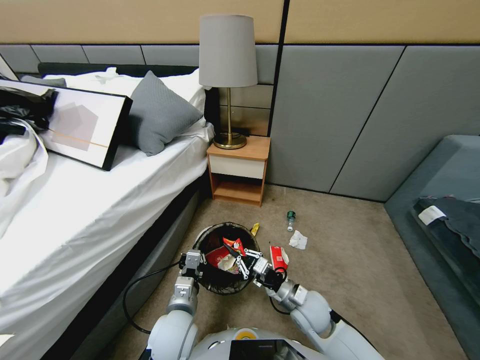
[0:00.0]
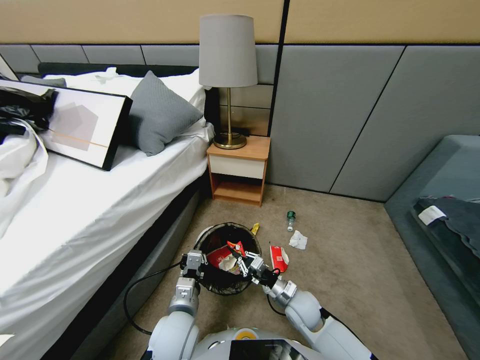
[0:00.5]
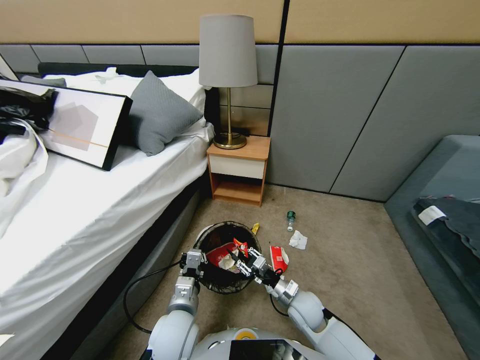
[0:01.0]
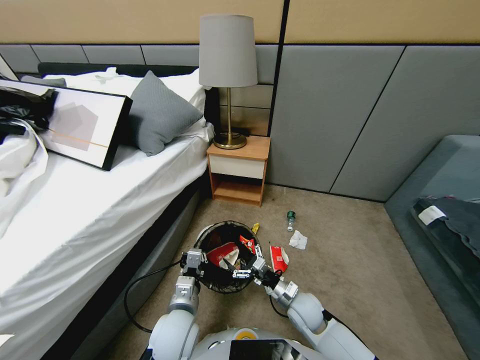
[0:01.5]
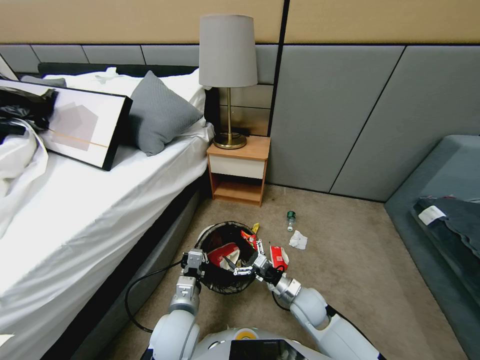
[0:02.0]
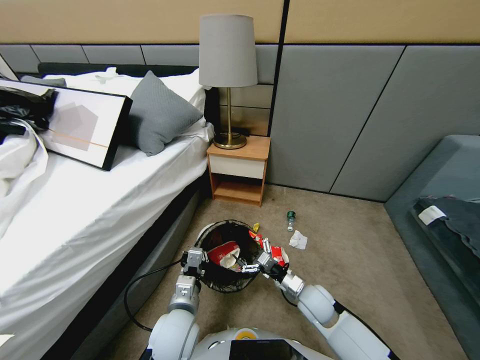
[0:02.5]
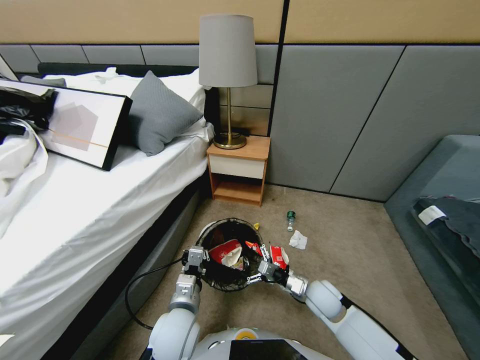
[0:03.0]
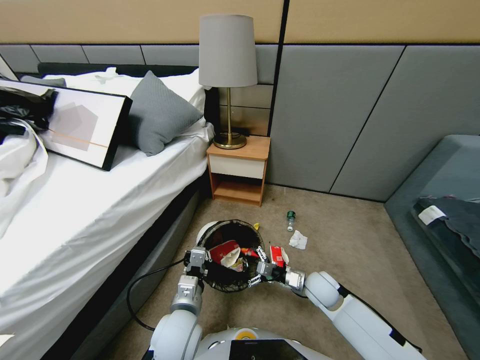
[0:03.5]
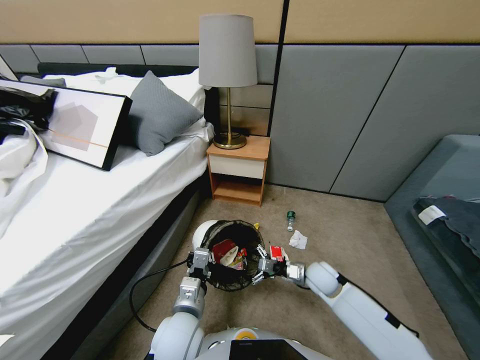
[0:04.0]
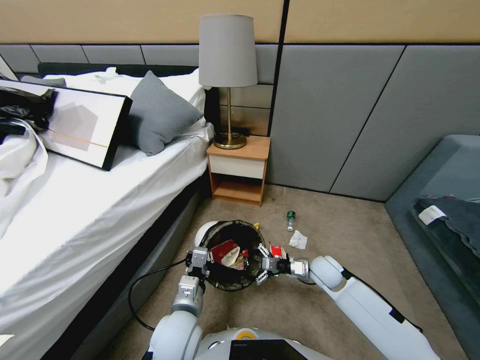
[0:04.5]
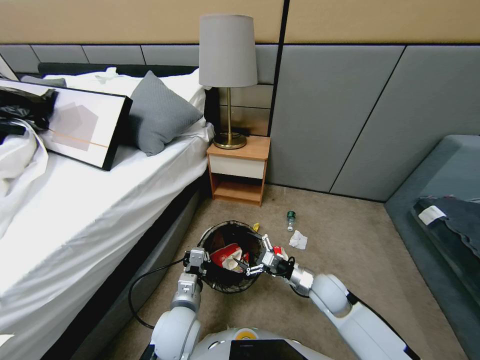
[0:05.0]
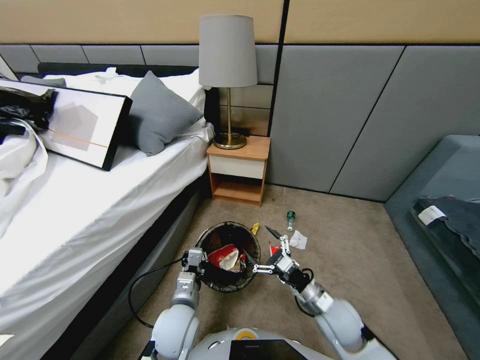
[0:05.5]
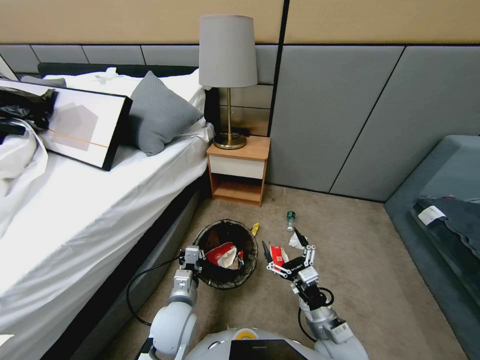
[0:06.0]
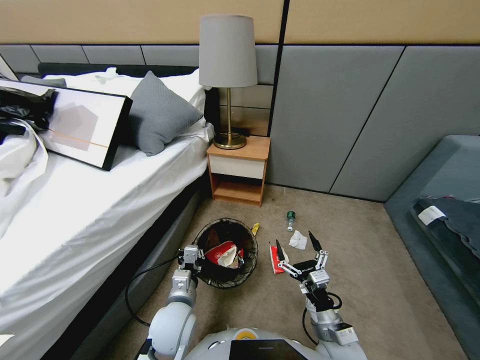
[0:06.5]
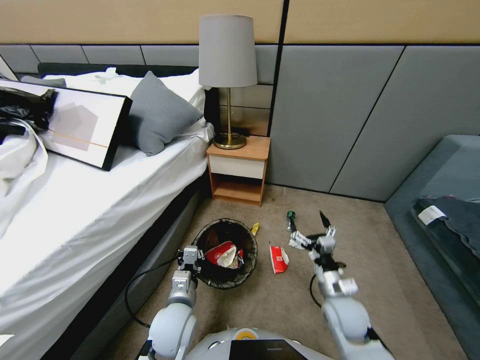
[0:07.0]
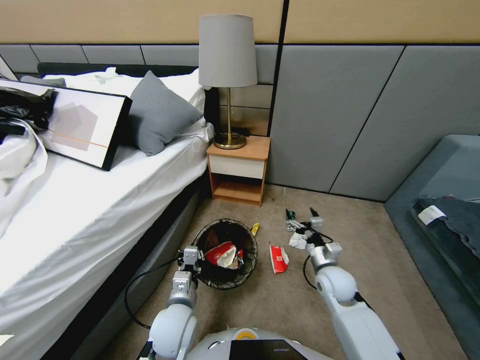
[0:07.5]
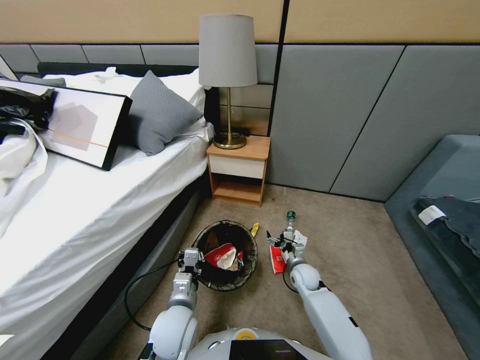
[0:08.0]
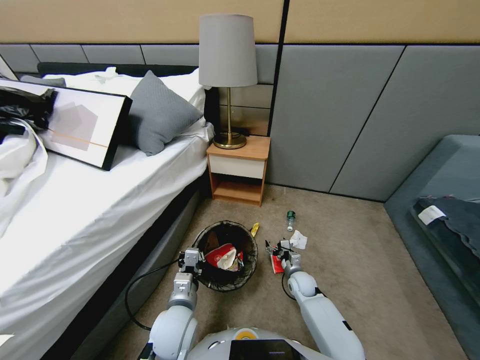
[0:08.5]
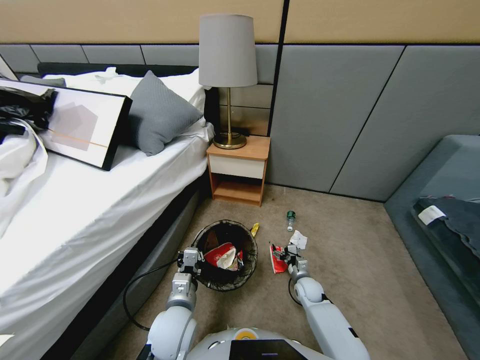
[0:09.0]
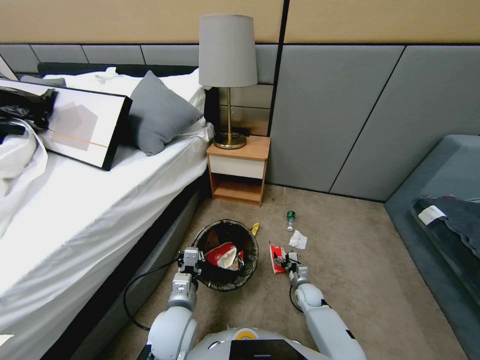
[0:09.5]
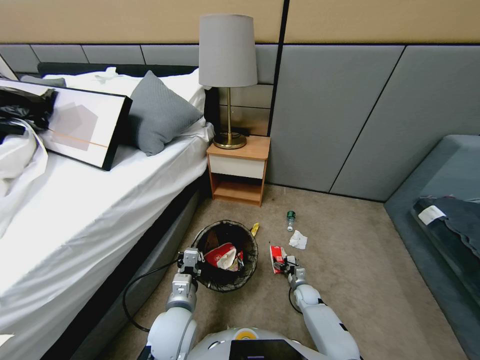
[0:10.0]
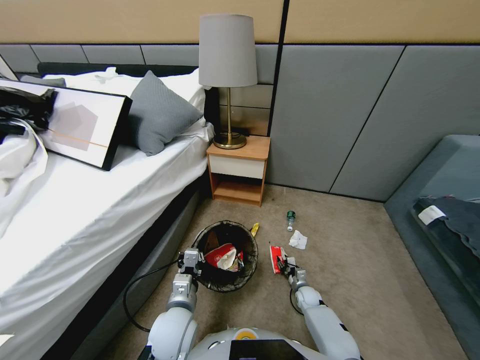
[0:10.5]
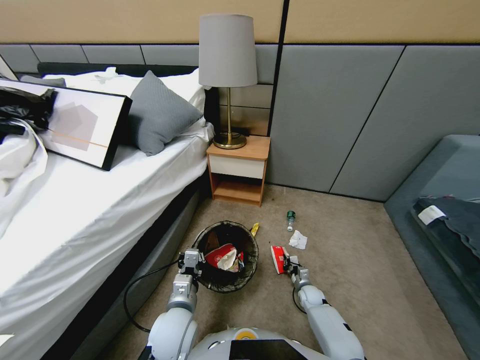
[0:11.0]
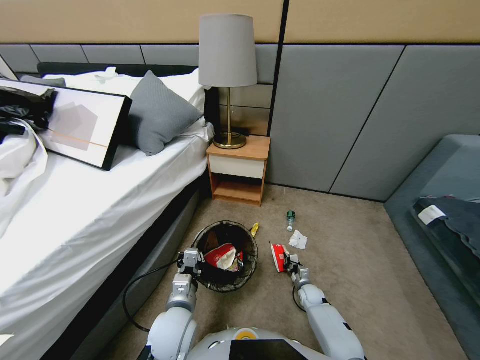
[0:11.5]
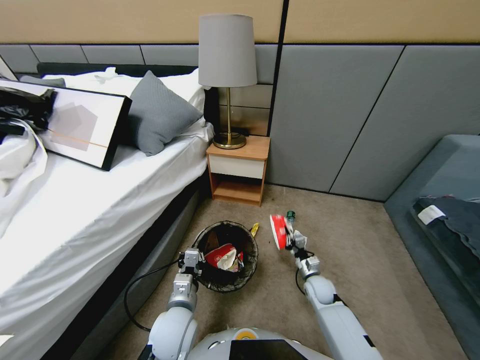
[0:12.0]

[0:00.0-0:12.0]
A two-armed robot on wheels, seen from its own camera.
Task of the whole recording: Pick up the trash bin, then pick up the garbage from the floor and place it into the trash bin.
0:00.0 to 0:02.0: The right gripper opens up.
0:02.0 to 0:04.0: The right gripper heads forward and to the right, covering roughly 10 cm.
0:04.0 to 0:06.0: The right gripper is displaced backward by approximately 20 cm.
0:06.0 to 0:08.0: The right gripper goes roughly 25 cm forward and downward.
0:08.0 to 0:10.0: The right gripper shifts approximately 15 cm downward.
0:10.0 to 0:12.0: The right gripper shifts roughly 20 cm upward, and closes its fingers.

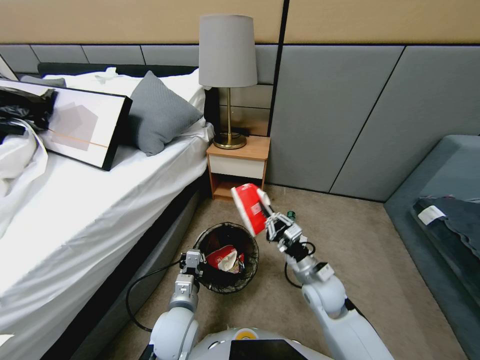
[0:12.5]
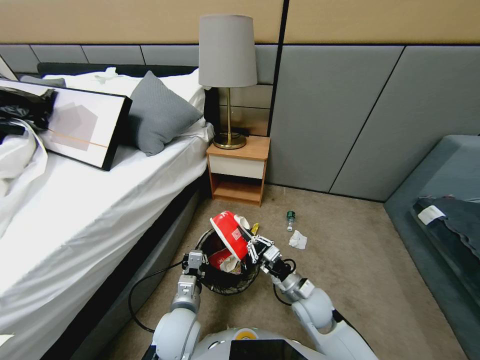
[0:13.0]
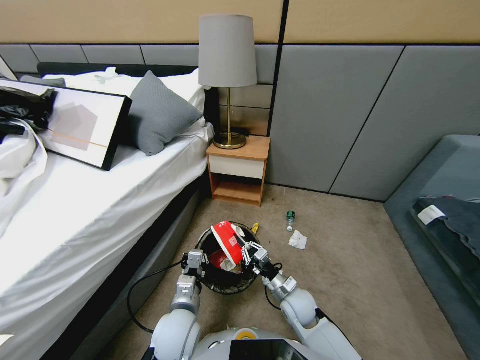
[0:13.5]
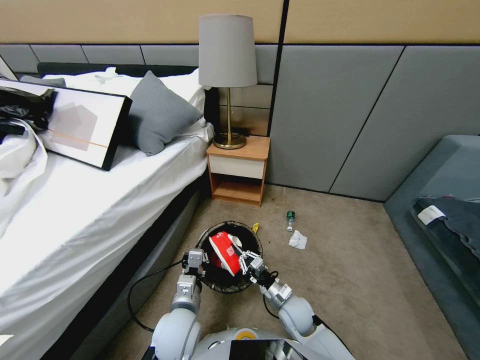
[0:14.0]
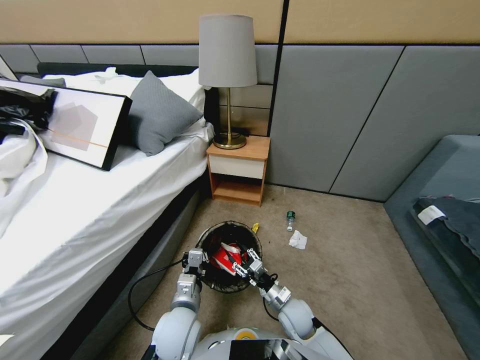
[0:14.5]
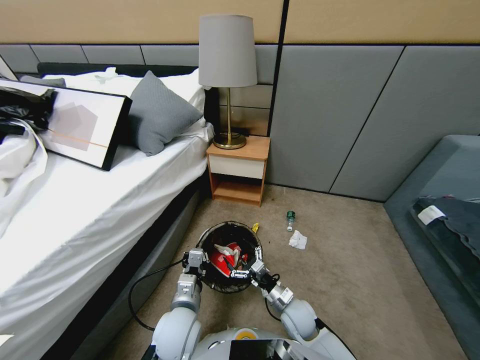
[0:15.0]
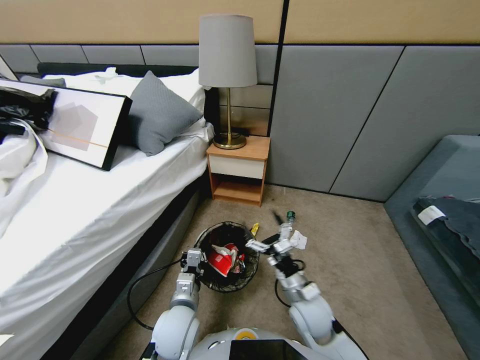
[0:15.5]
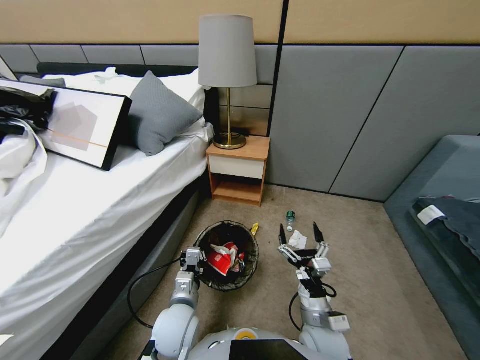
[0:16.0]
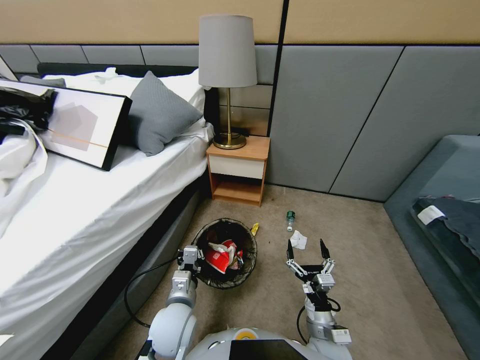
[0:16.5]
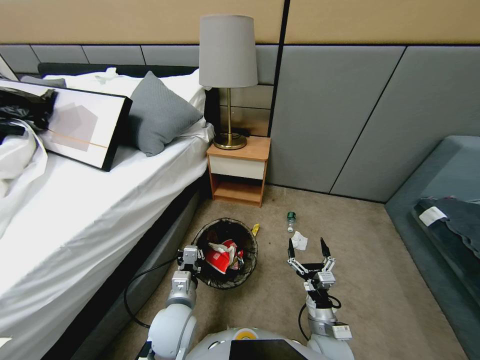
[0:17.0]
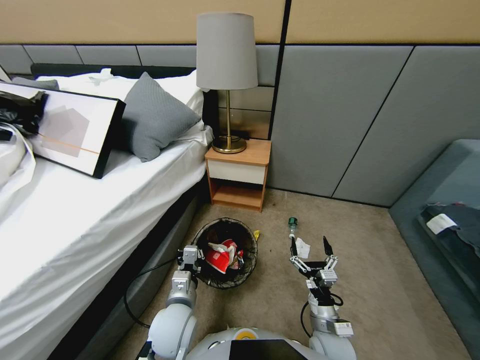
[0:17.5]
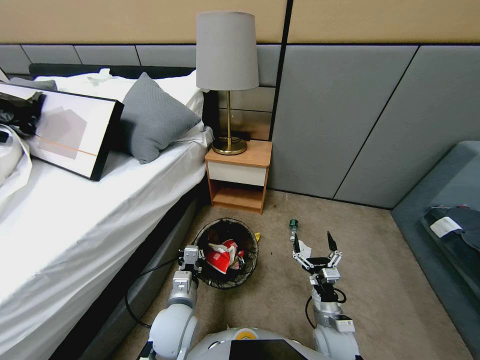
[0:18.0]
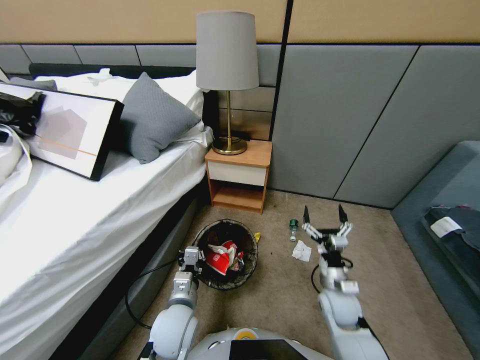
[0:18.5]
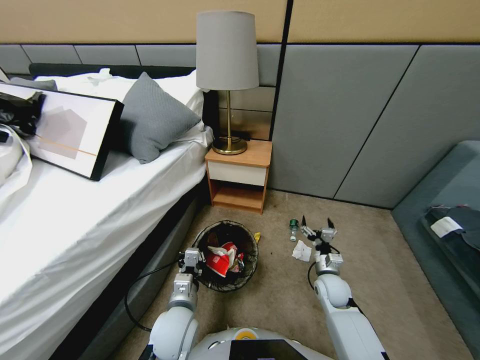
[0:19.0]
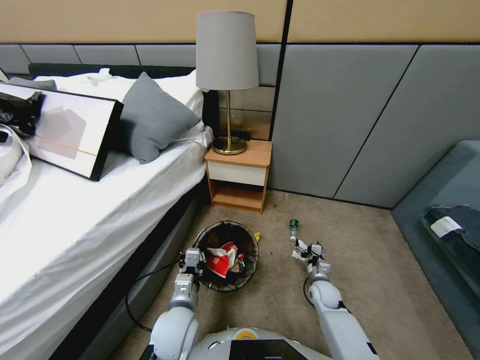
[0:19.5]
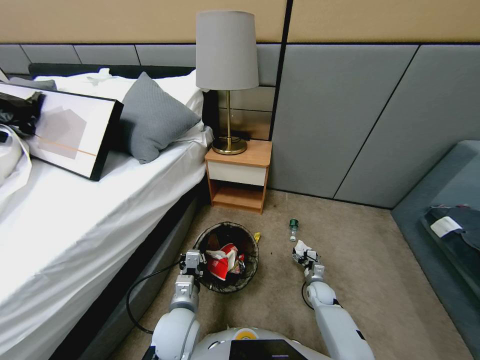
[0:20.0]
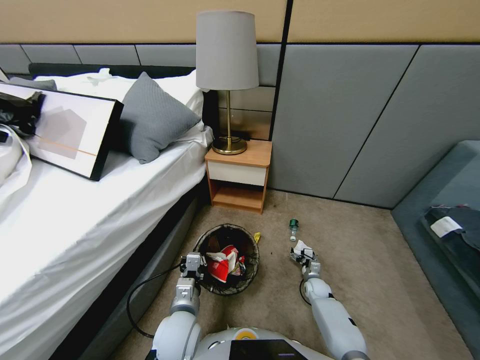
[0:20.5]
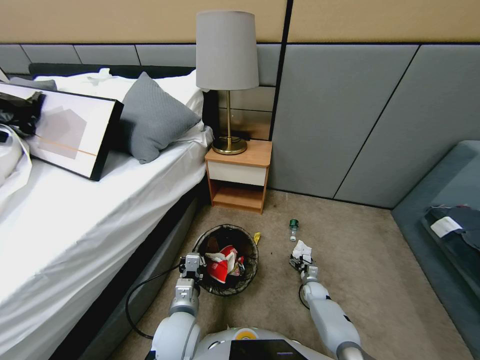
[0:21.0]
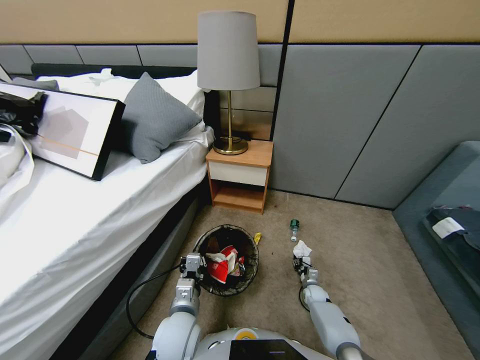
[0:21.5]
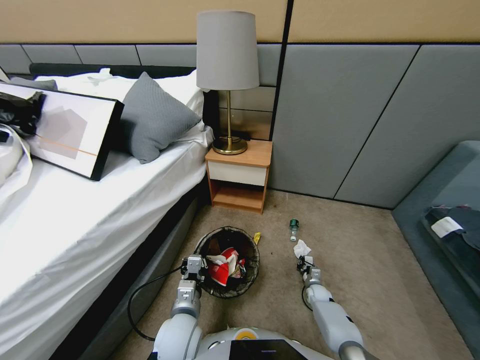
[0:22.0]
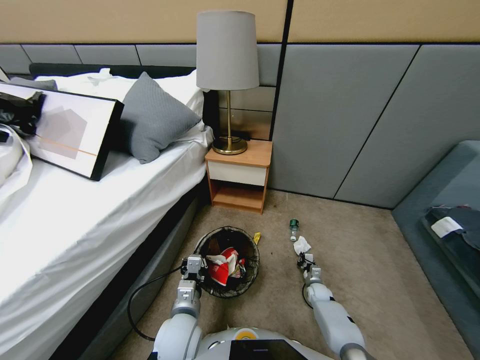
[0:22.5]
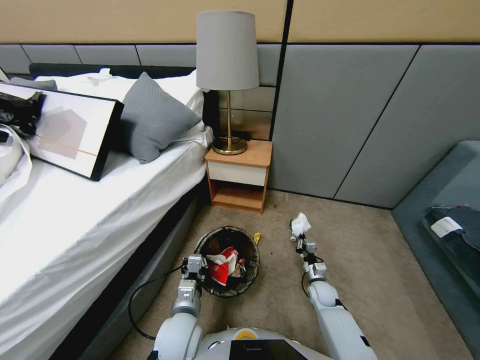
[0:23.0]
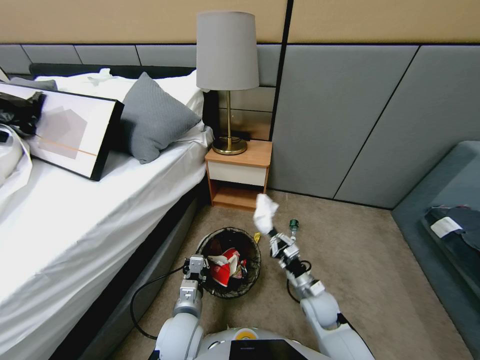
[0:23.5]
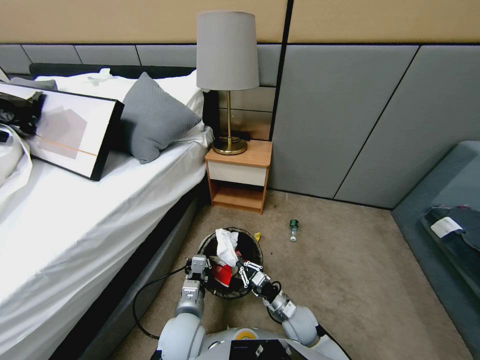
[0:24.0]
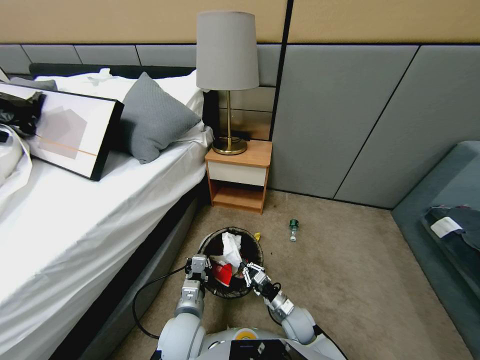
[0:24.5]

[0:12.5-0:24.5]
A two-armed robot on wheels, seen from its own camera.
Task of the whole recording: Pick up the trash bin, then pick up the garbage from the floor and place it into the trash bin.
0:12.5 to 0:14.5: The right gripper heads downward, covering approximately 15 cm, and opens its fingers.
0:14.5 to 0:16.5: The right gripper shifts some 10 cm backward.
0:16.5 to 0:18.5: The right gripper goes approximately 15 cm forward and to the right.
0:18.5 to 0:20.5: The right gripper heads downward, covering some 25 cm.
0:20.5 to 0:22.5: The right gripper closes.
0:22.5 to 0:24.5: The right gripper moves to the left, upward and backward, some 20 cm.

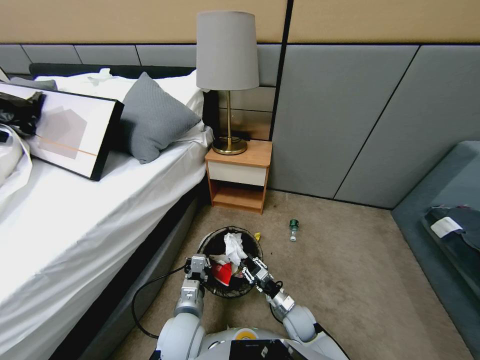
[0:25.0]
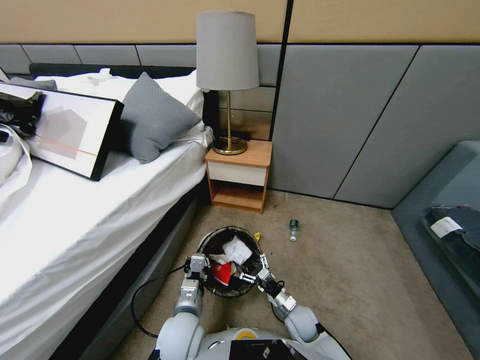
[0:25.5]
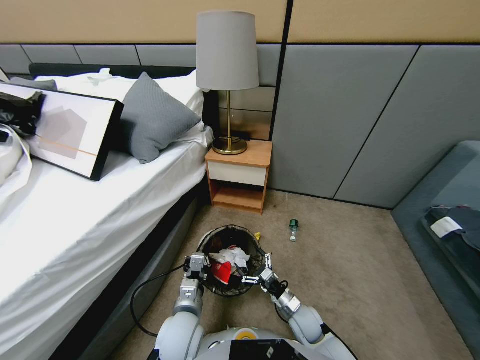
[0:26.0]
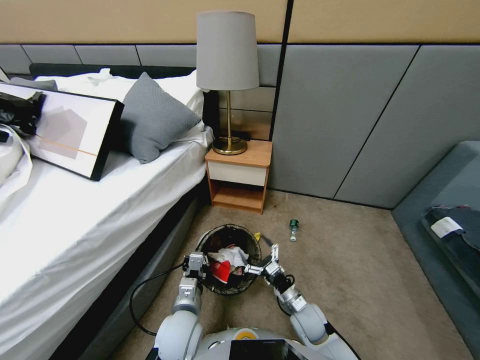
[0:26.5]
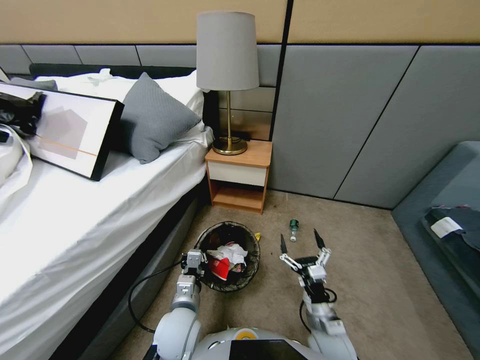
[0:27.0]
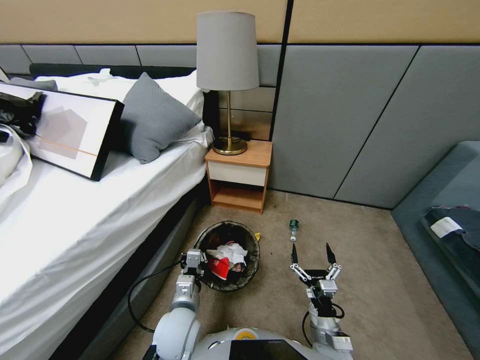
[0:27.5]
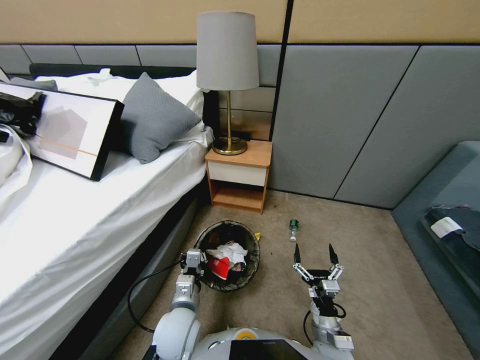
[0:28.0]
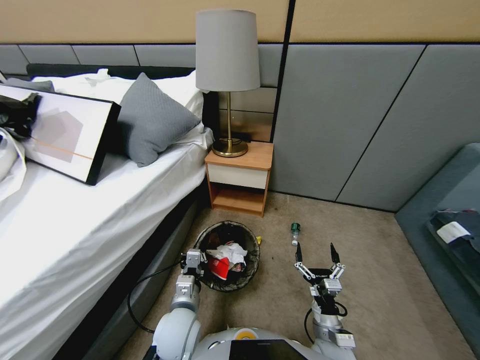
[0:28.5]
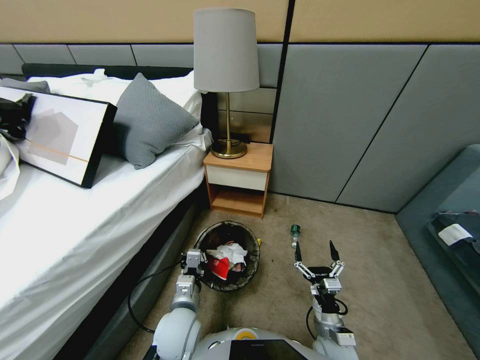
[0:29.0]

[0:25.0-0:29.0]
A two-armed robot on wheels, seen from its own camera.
Task of the whole recording: Pick up the trash bin, then pick up the garbage from the floor and place it into the trash bin.
0:25.0 to 0:27.0: The right gripper goes about 15 cm upward and backward, and opens up.
0:27.0 to 0:29.0: The grippers make only small movements.
